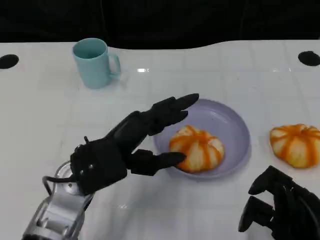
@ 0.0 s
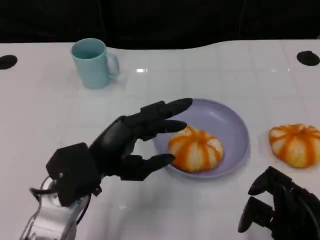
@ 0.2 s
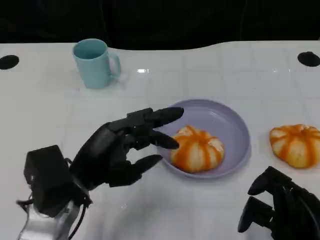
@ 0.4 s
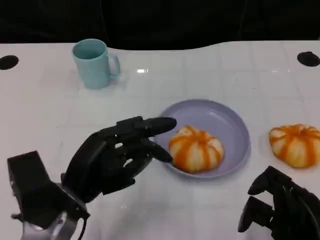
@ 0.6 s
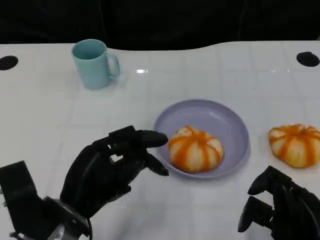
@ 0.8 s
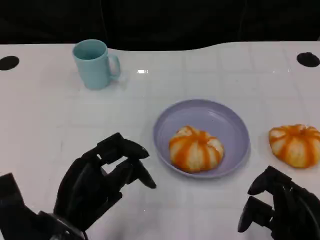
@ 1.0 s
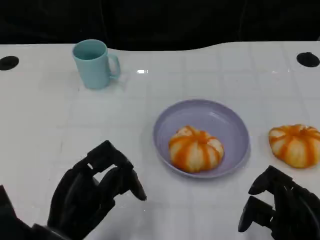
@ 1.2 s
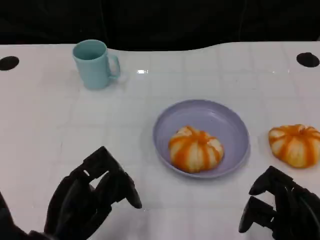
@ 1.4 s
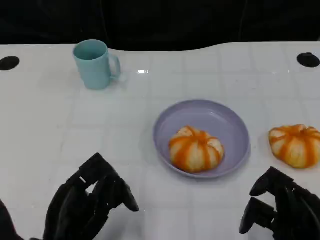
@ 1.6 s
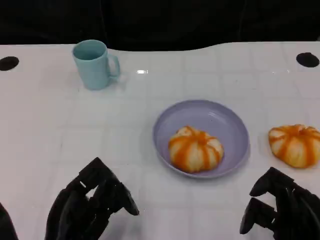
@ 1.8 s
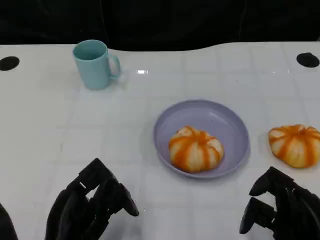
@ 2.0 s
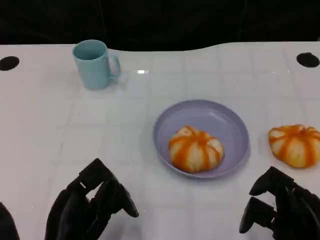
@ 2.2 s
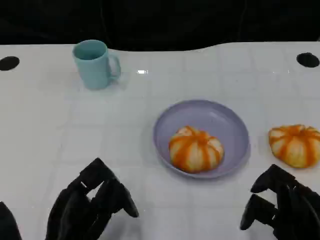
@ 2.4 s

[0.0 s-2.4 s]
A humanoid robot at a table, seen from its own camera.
Task of the whole recording: Grasp the bread from the table and place it into the plate.
0.0 to 1.2 s: The left hand heads backward, covering roughly 10 cm.
1.2 to 2.4 s: The hands stay close to where they were, moving slightly.

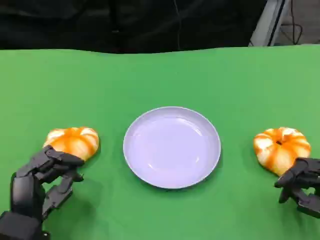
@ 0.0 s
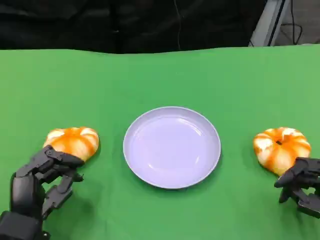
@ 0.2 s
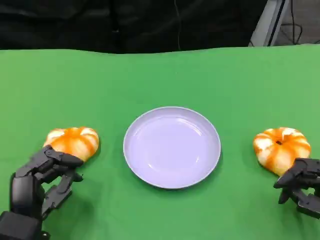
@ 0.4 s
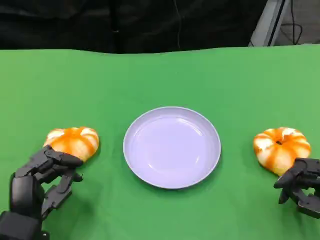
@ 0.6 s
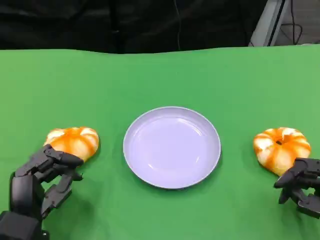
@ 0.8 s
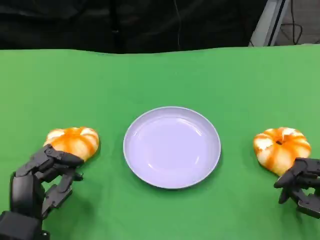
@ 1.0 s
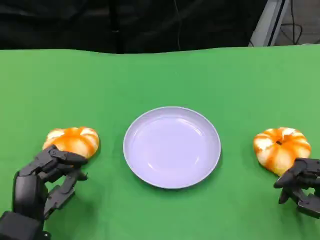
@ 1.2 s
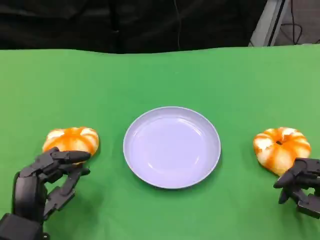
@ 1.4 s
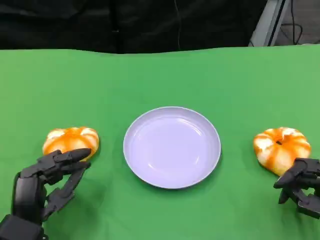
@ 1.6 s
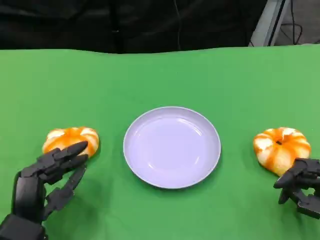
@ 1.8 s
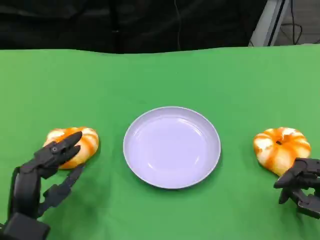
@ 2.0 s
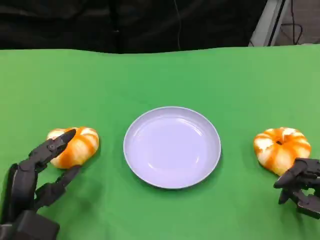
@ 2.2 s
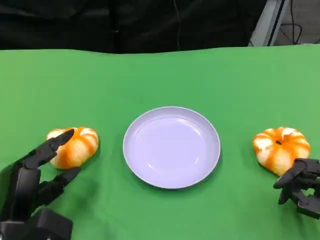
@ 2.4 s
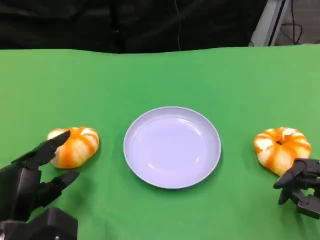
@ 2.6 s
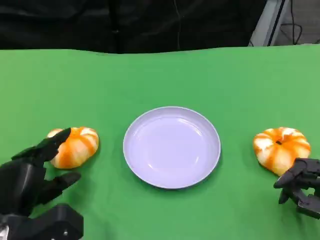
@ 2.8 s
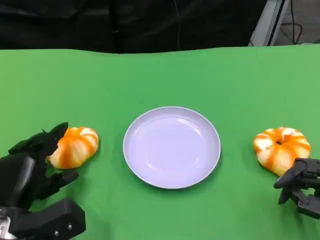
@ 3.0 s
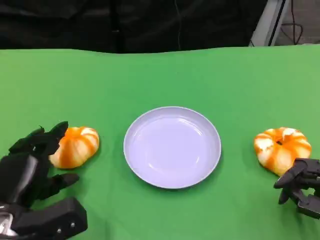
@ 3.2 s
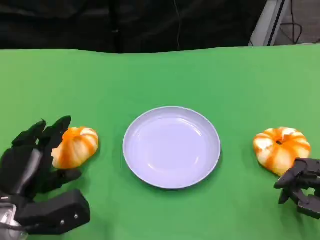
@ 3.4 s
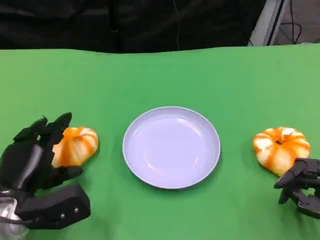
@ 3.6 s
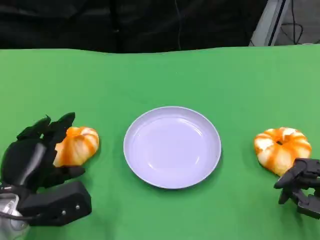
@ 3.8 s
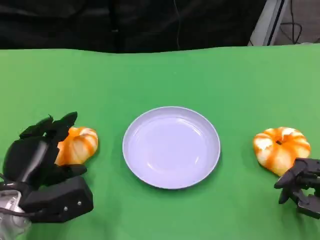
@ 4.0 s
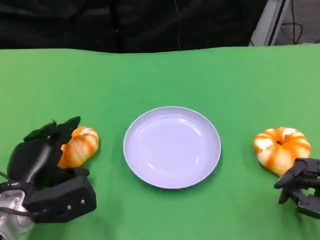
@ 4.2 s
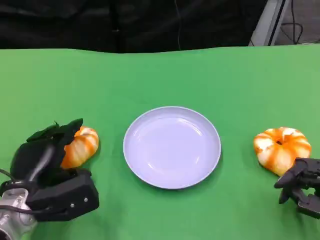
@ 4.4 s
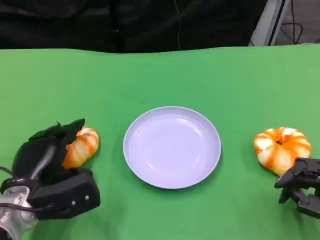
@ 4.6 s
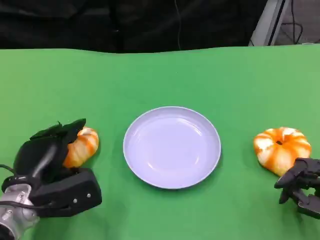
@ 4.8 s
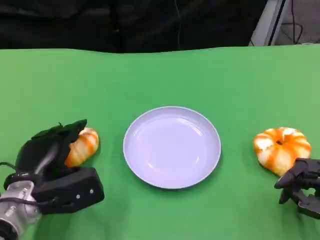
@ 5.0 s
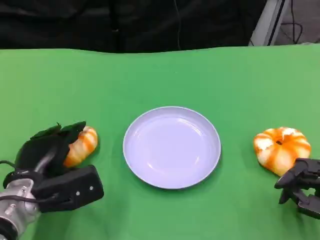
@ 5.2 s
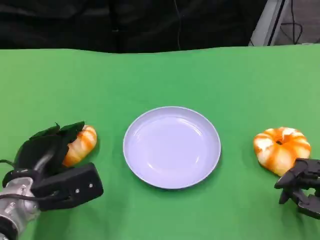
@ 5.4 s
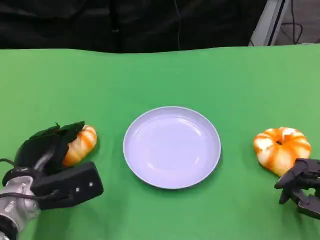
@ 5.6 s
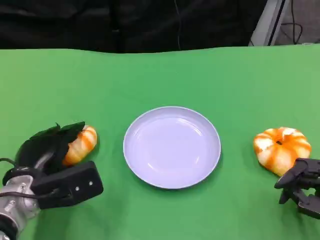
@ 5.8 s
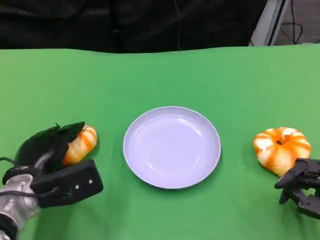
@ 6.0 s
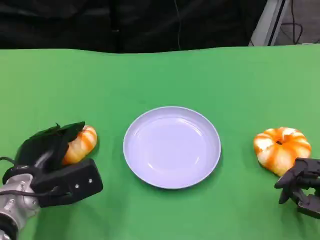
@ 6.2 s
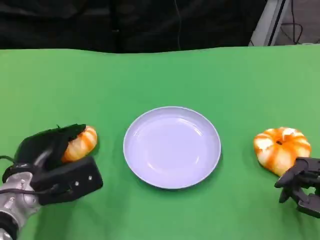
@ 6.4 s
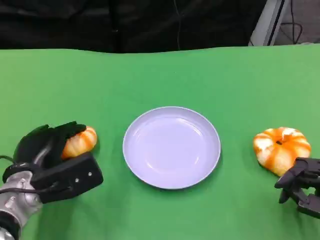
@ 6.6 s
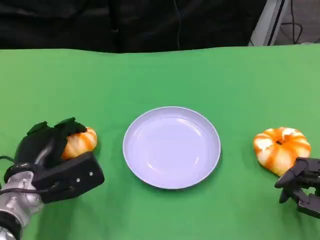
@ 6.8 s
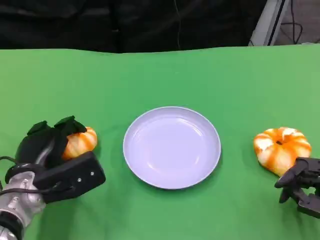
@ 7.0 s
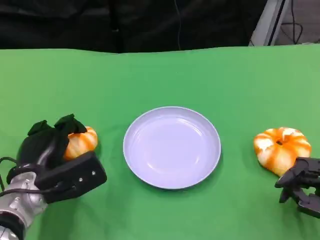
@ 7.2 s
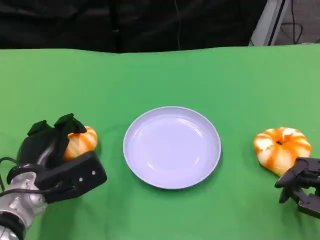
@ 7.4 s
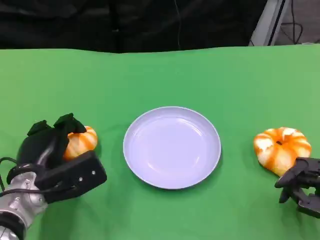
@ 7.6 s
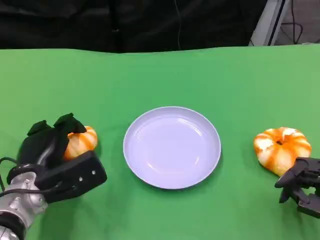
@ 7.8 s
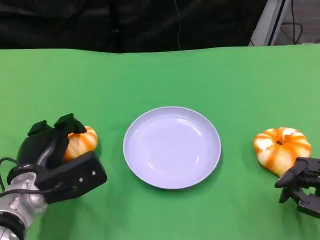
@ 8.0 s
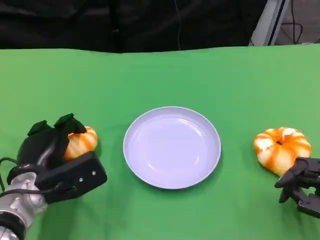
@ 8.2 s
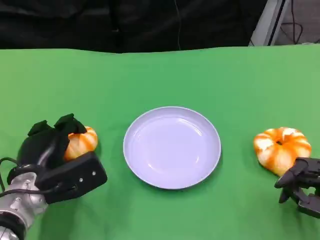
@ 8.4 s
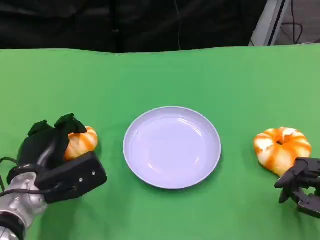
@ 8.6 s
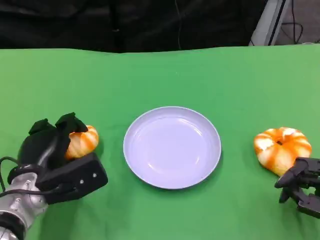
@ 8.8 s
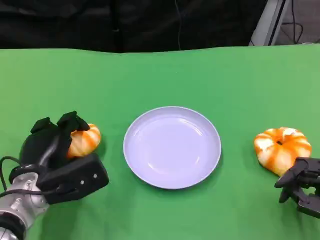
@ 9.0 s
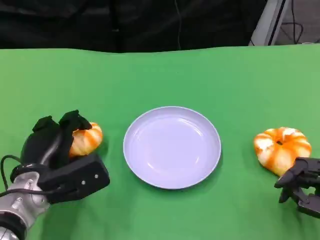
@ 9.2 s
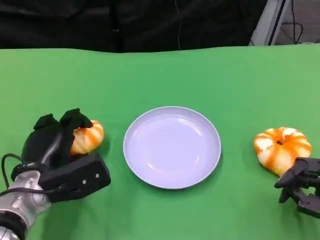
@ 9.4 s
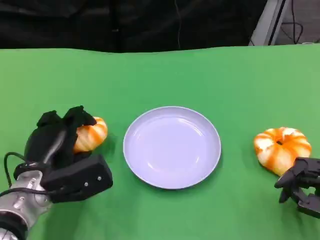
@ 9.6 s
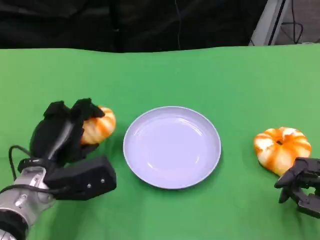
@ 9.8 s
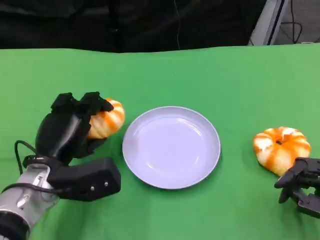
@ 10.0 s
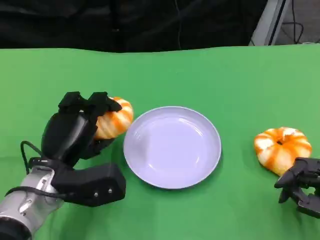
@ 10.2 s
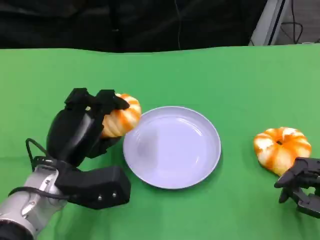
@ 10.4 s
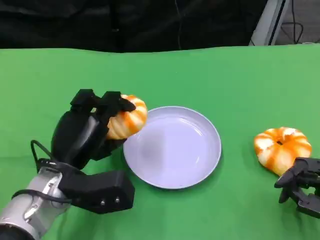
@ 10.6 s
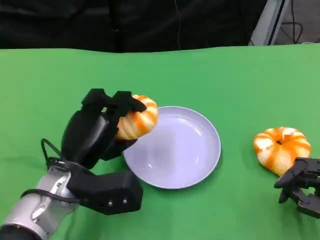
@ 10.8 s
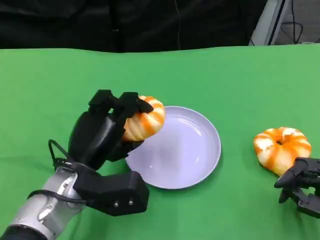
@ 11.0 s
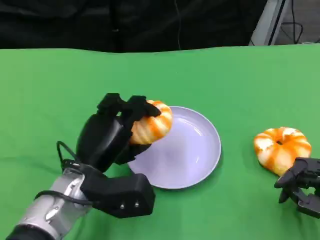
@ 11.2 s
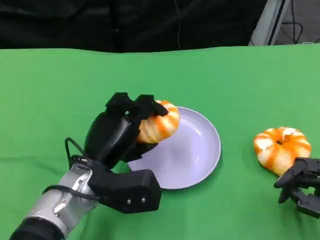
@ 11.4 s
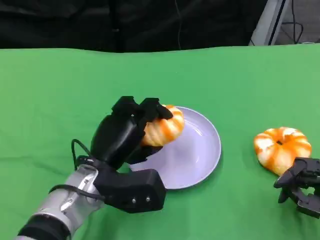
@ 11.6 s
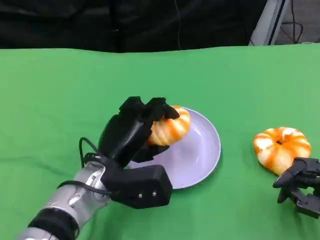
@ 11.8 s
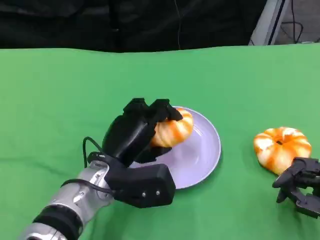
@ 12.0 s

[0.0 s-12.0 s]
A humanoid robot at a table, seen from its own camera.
Task of the whole recording: Grasp the bread from the table and place it into the plate.
0.0 to 1.6 s: There are only small adjustments of the hands.
3.0 to 4.4 s: The hands make only small movements.
4.4 to 7.6 s: The hands stay close to where they were, moving slightly.
7.6 to 9.0 s: Neither hand changes place.
9.0 to 10.4 s: The left hand shifts by roughly 5 cm.
10.4 to 12.0 s: The left hand moves to the right, approximately 5 cm.

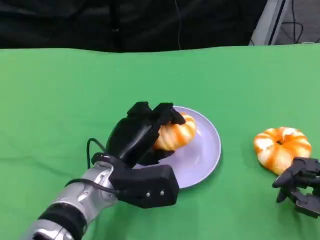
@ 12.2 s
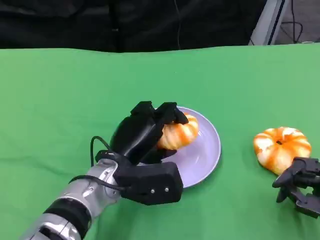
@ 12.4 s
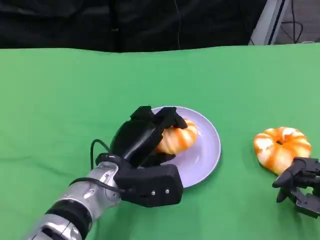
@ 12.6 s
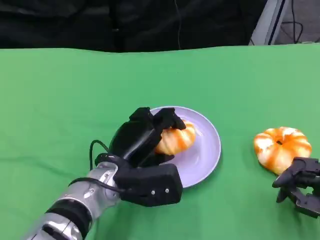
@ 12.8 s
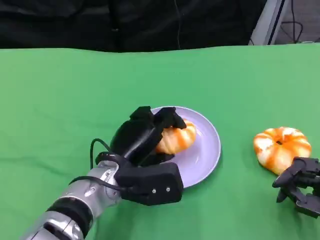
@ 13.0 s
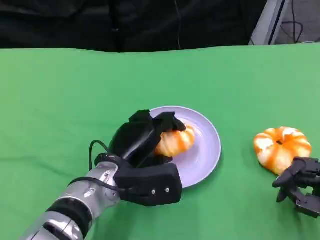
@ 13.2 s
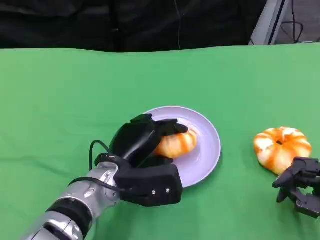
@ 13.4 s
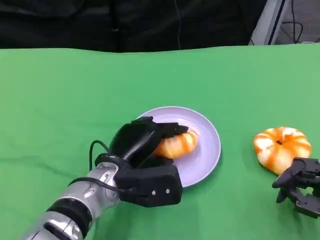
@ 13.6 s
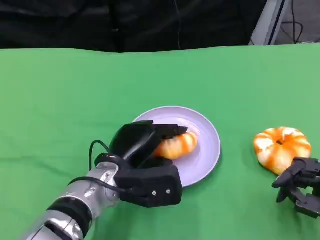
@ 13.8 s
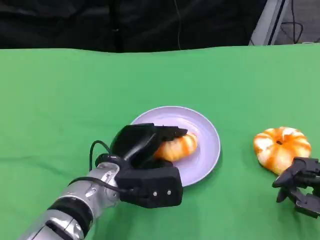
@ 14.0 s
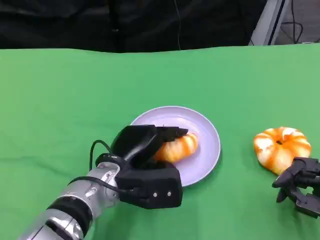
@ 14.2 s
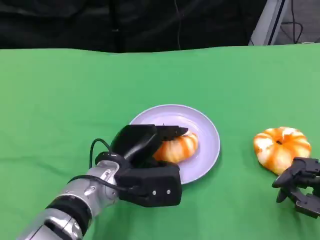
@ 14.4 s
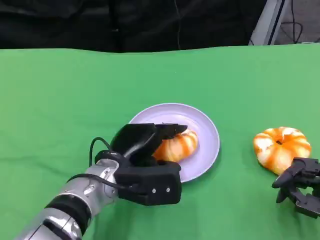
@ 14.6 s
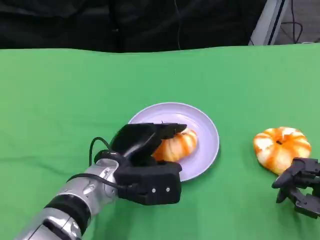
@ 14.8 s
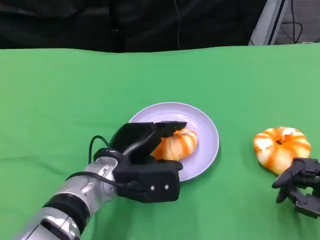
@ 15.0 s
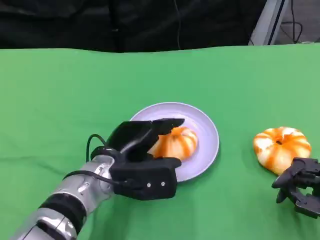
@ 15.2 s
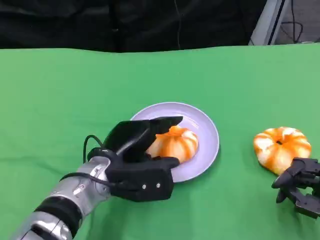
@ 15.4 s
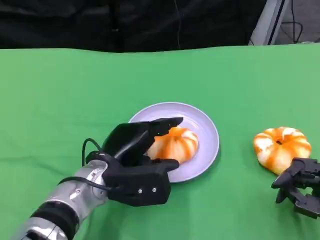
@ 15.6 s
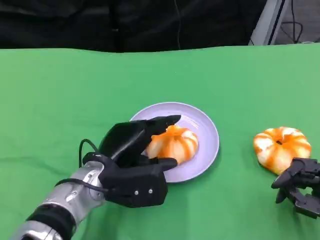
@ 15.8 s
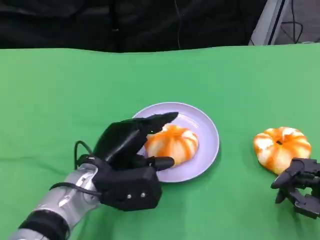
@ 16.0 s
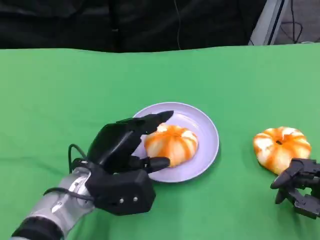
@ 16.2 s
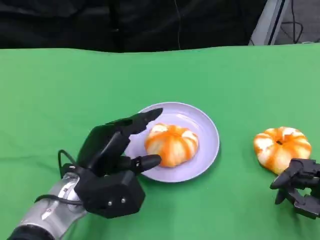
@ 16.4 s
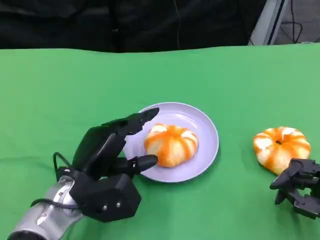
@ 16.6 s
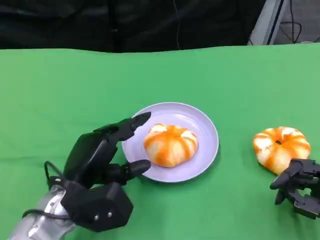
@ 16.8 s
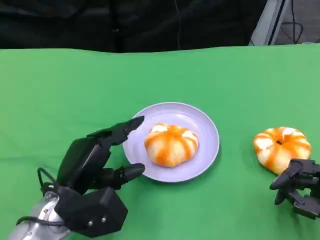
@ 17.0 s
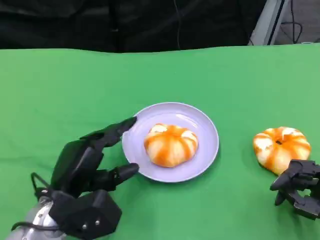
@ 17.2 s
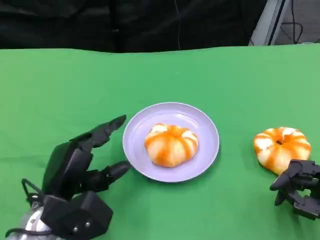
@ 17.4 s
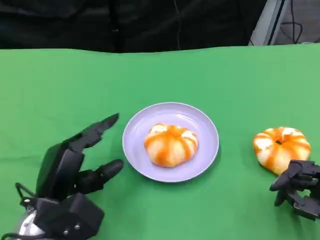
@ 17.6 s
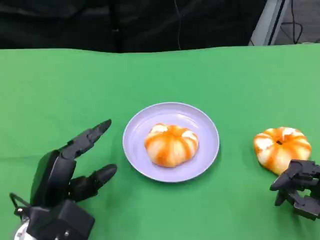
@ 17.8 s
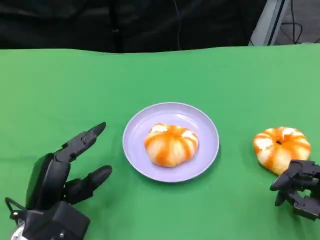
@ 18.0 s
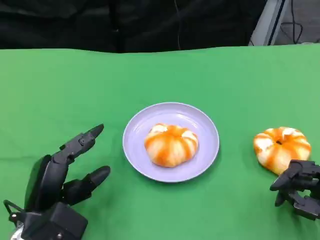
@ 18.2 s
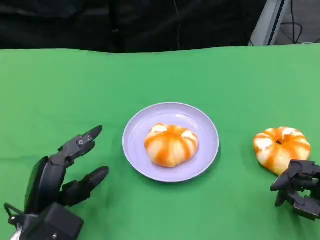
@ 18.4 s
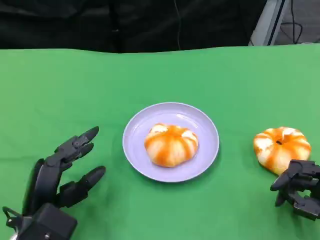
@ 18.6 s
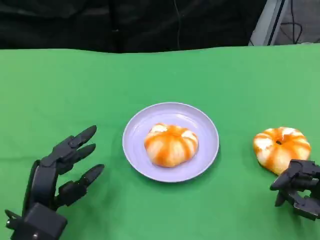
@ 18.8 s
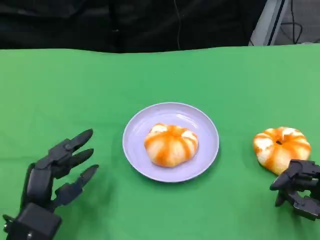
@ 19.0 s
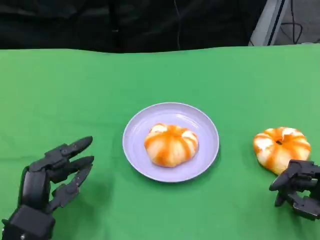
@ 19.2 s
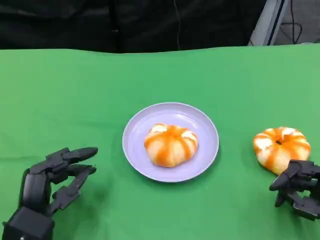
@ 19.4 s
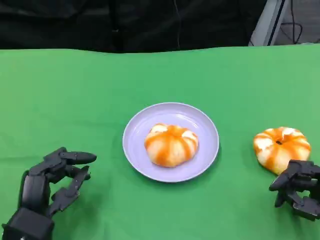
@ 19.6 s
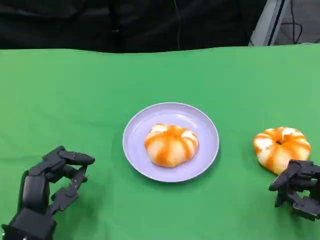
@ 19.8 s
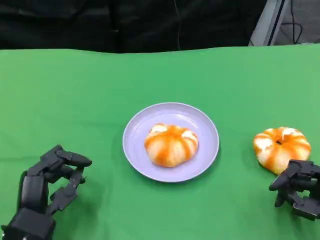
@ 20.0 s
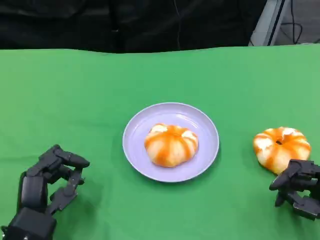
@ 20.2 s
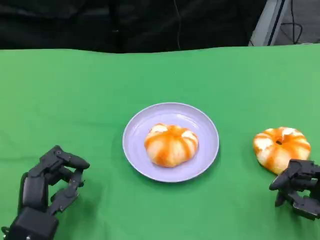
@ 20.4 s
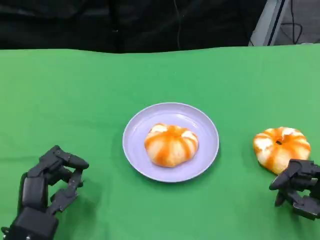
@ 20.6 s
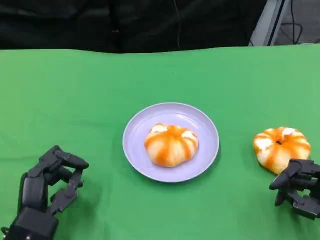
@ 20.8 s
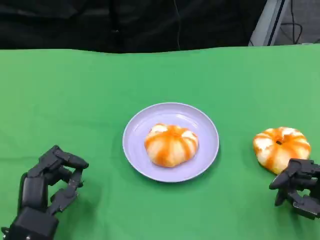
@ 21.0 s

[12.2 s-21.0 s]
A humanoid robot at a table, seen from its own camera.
Task of the whole recording: Grasp the bread from the table and place it into the plate.
12.2 to 15.2 s: The hands move only a little.
15.2 to 16.6 s: The left hand moves approximately 5 cm.
16.6 to 18.0 s: The left hand travels to the left by some 5 cm.
19.6 to 21.0 s: Neither hand changes place.
